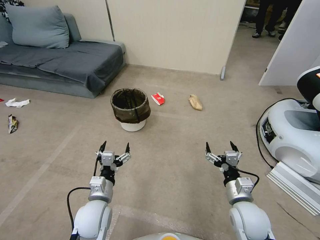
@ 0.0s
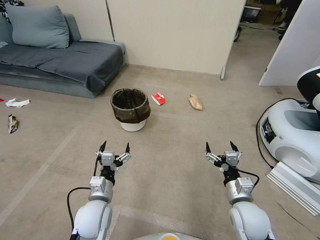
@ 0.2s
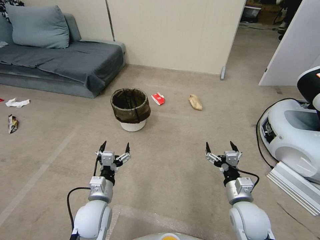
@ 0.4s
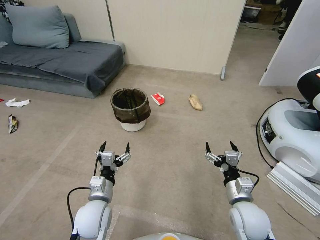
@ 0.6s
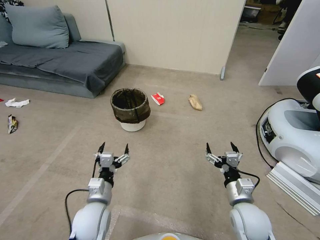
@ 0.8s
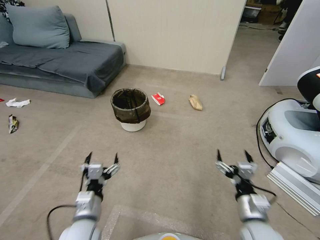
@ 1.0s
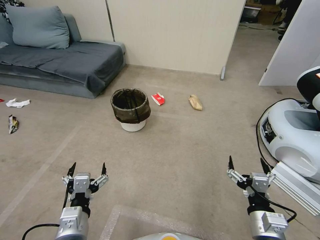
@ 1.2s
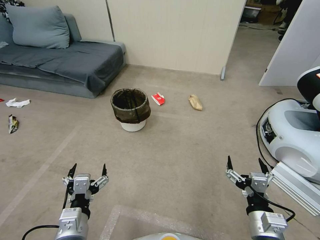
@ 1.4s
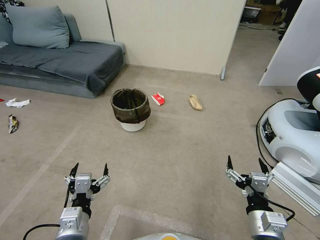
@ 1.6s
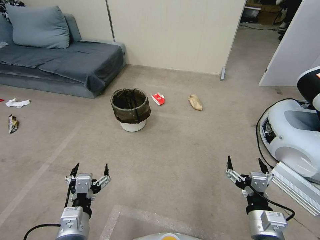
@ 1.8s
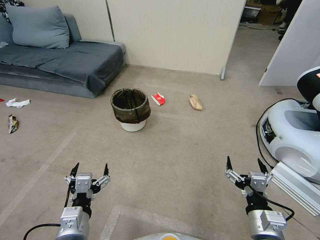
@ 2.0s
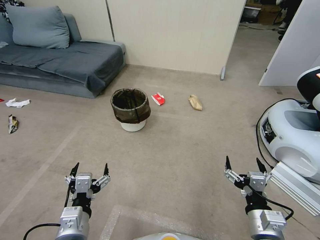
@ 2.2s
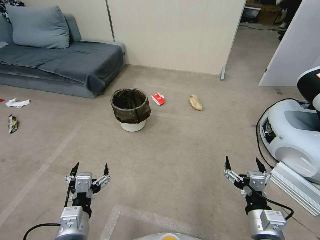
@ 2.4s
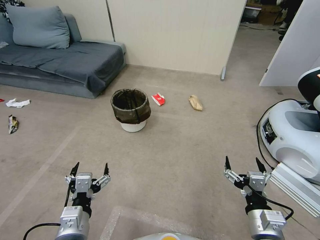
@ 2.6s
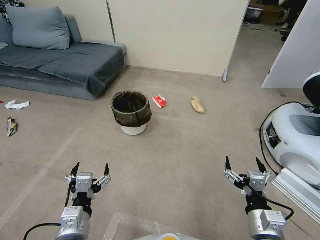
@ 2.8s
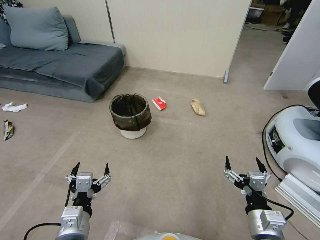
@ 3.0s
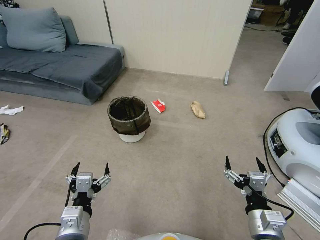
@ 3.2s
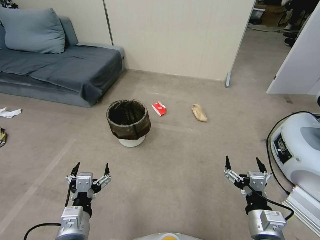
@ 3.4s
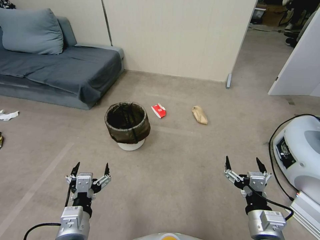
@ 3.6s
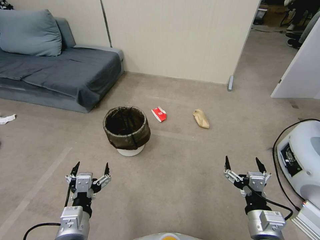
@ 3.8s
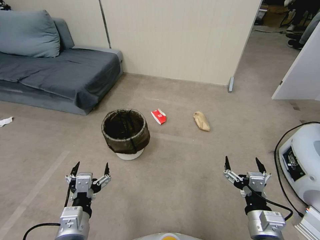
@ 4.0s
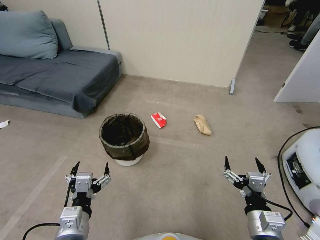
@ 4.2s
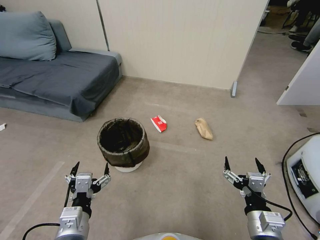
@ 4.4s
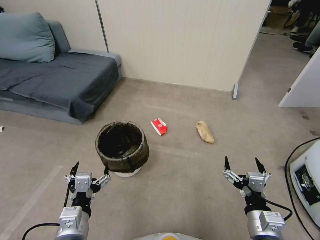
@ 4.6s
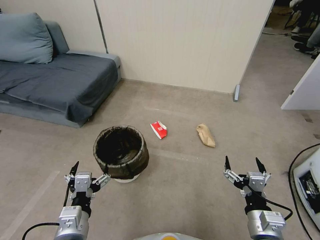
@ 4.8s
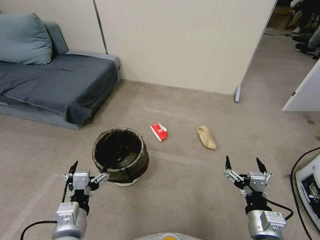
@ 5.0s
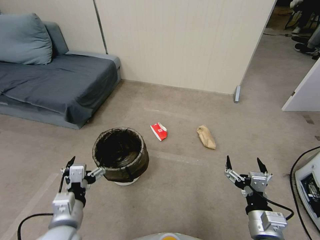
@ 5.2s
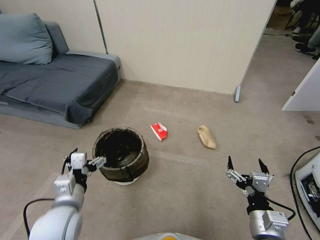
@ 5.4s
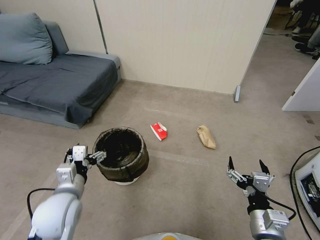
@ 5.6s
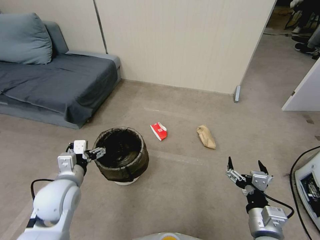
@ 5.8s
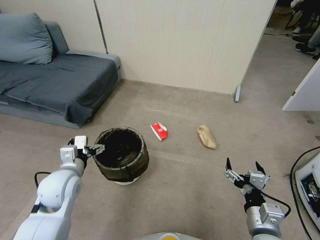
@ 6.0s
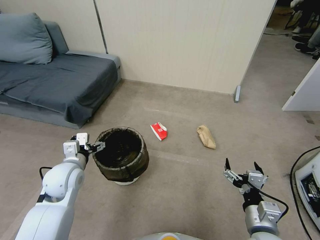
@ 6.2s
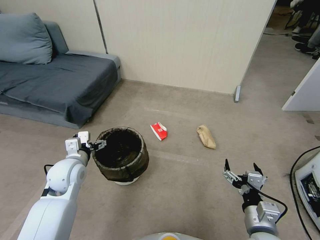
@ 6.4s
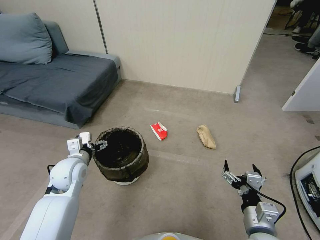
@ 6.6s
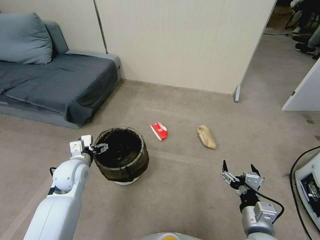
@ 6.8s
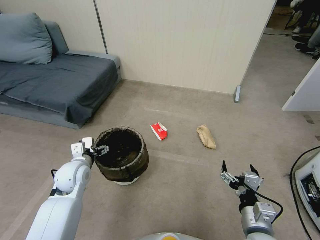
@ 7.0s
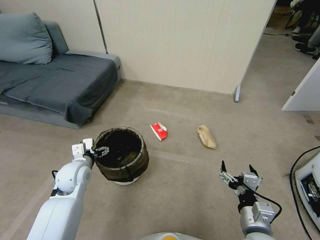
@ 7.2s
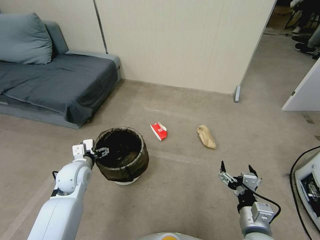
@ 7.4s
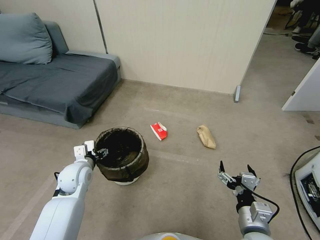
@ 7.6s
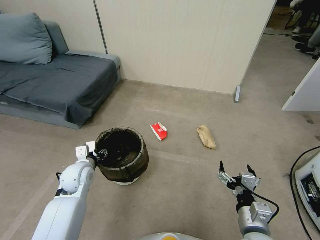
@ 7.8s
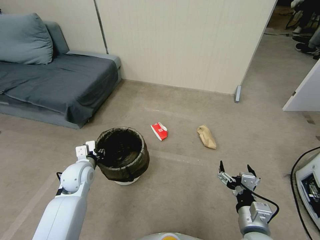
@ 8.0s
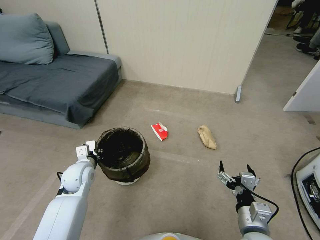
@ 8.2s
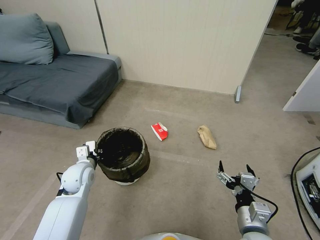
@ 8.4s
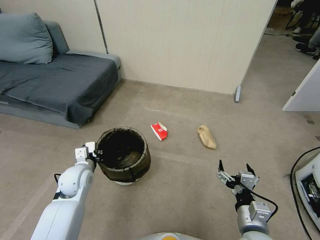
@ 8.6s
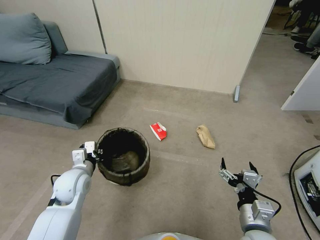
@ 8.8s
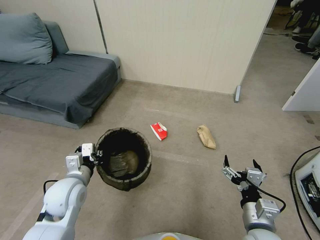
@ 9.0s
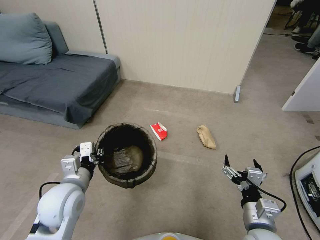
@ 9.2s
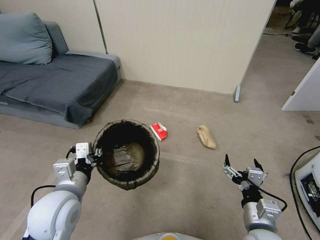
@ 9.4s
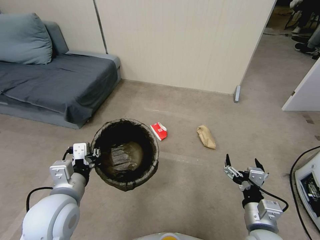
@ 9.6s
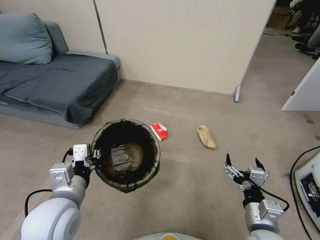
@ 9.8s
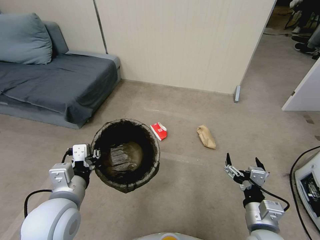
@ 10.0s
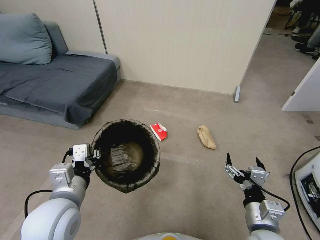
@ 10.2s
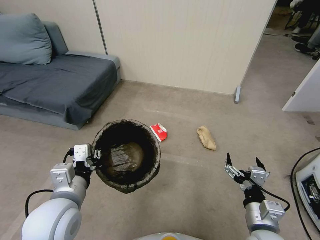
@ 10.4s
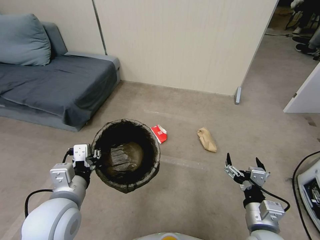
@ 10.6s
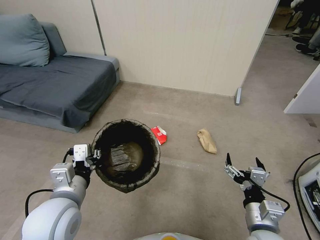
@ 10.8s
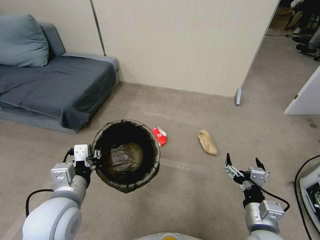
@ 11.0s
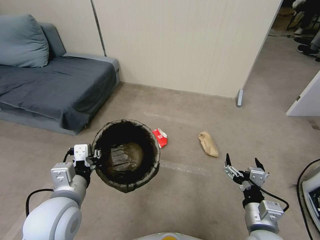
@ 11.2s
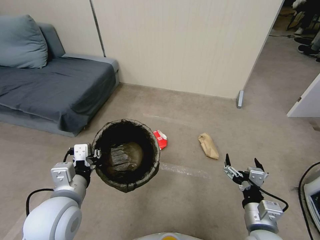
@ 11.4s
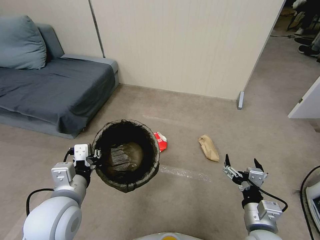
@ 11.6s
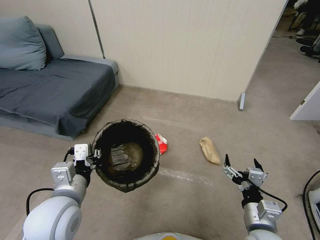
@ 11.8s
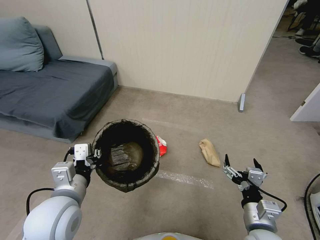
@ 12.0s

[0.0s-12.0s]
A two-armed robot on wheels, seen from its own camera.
Task of the whole recording: Pick up the trash bin, then pick up the garbage from the floor and place it into the trash bin.
1.6s to 3.0s: Both grippers stay about where they are.
4.4s to 6.0s: The left gripper goes roughly 15 cm forward and to the left.
6.0s to 7.6s: The left gripper heads downward and forward, covering some 10 cm.
7.6s to 9.0s: The left gripper moves backward, approximately 5 cm, and closes.
9.0s to 10.4s: The left gripper shifts some 10 cm upward and backward.
10.4s to 12.0s: Neither gripper changes place.

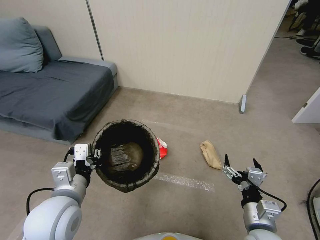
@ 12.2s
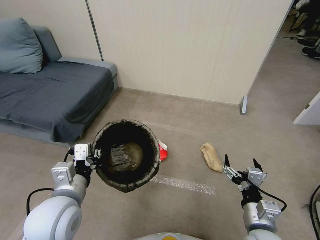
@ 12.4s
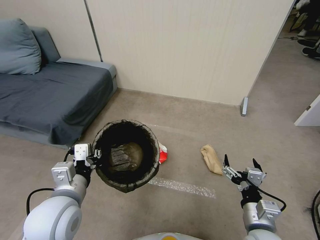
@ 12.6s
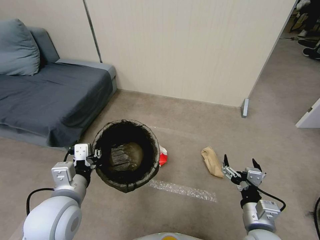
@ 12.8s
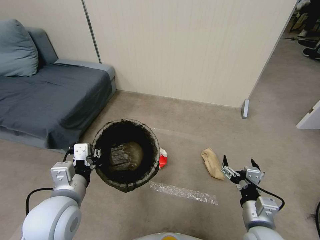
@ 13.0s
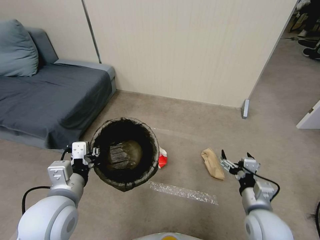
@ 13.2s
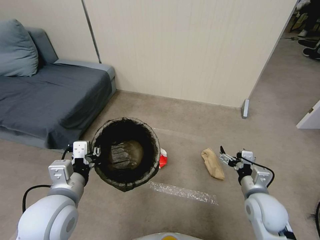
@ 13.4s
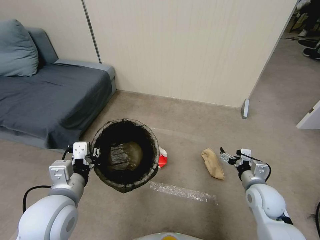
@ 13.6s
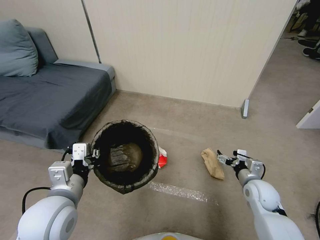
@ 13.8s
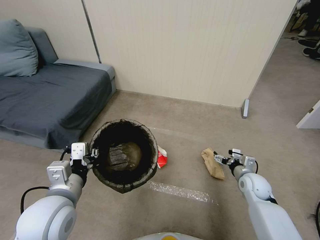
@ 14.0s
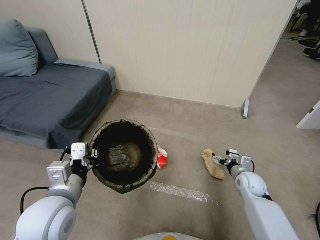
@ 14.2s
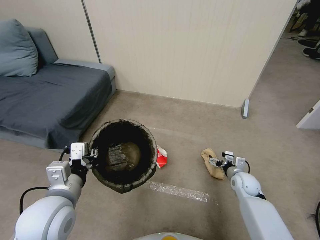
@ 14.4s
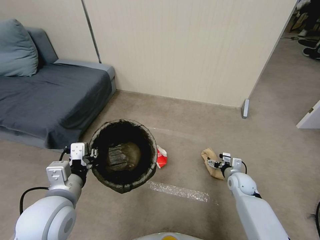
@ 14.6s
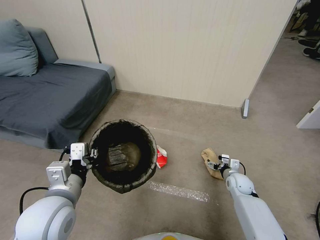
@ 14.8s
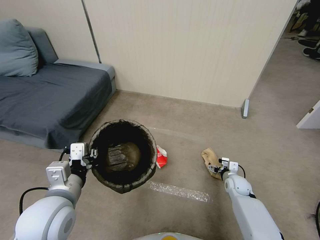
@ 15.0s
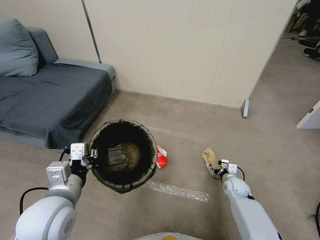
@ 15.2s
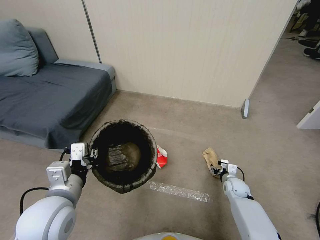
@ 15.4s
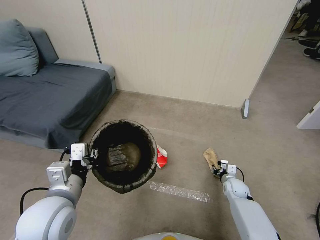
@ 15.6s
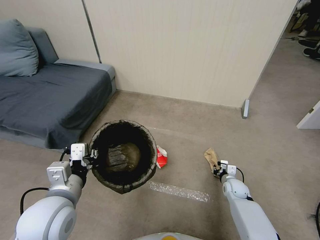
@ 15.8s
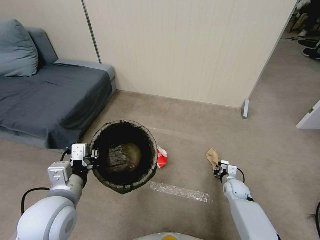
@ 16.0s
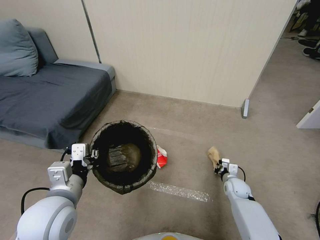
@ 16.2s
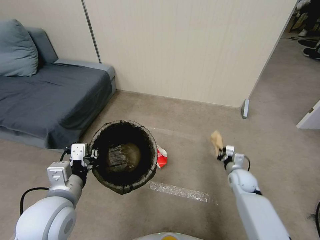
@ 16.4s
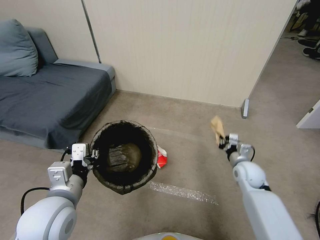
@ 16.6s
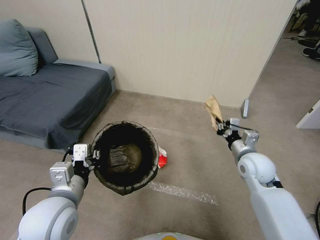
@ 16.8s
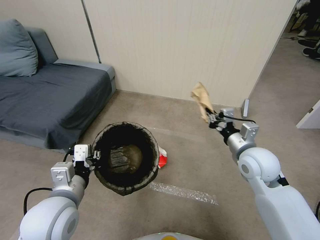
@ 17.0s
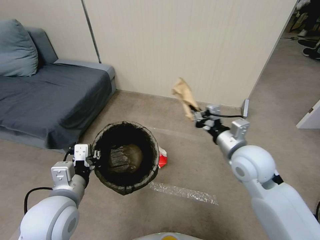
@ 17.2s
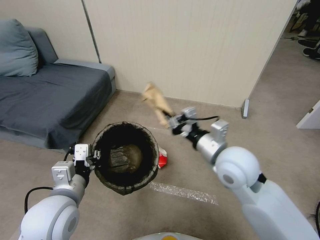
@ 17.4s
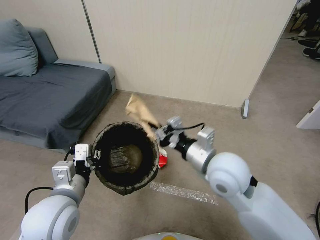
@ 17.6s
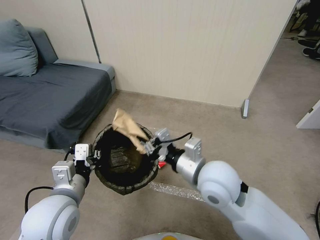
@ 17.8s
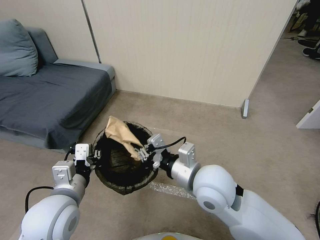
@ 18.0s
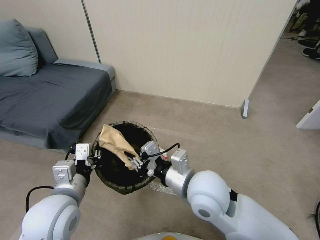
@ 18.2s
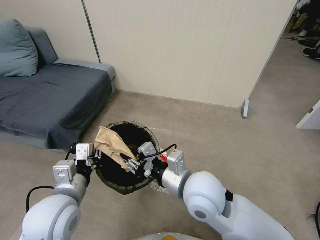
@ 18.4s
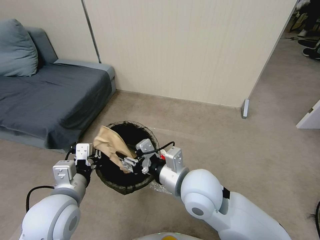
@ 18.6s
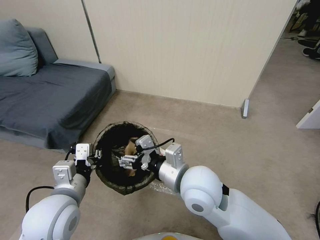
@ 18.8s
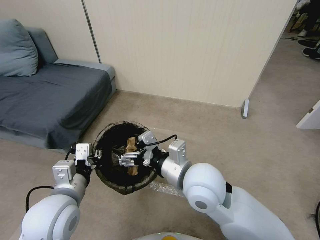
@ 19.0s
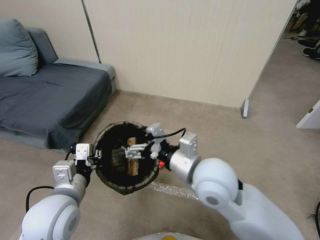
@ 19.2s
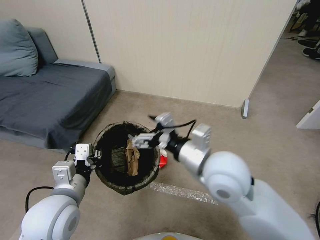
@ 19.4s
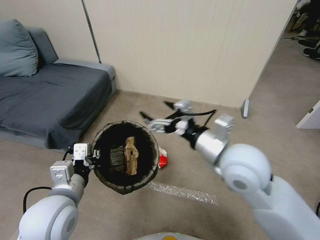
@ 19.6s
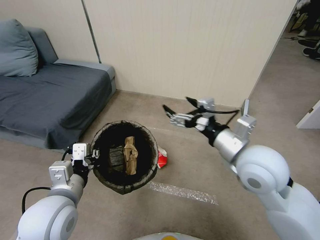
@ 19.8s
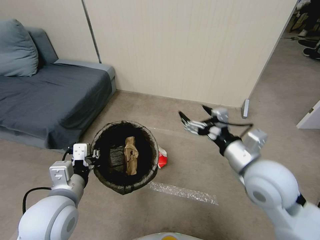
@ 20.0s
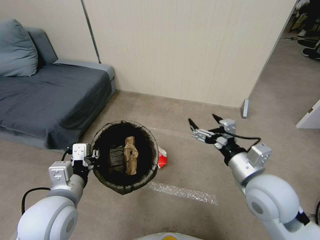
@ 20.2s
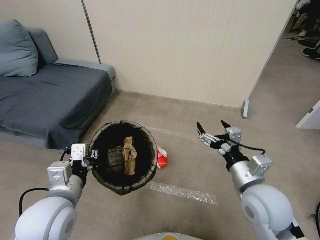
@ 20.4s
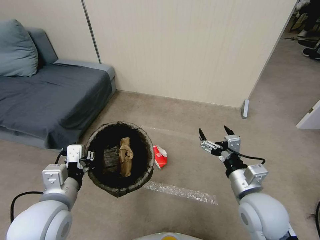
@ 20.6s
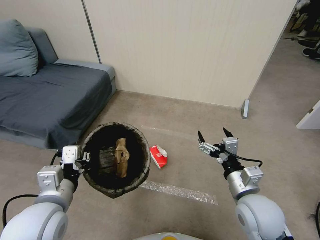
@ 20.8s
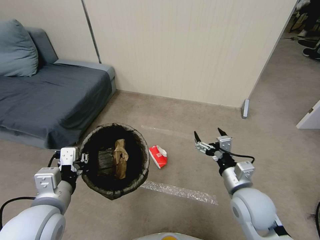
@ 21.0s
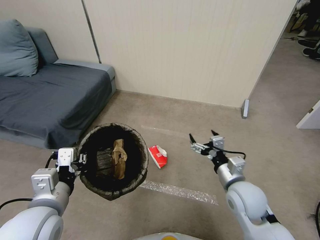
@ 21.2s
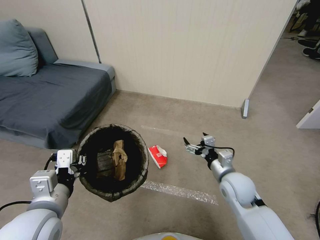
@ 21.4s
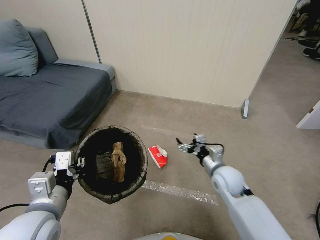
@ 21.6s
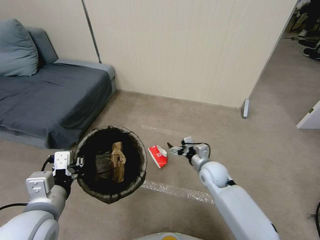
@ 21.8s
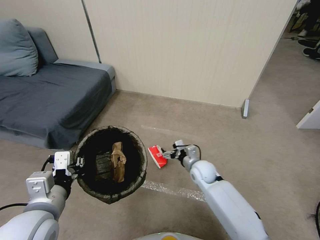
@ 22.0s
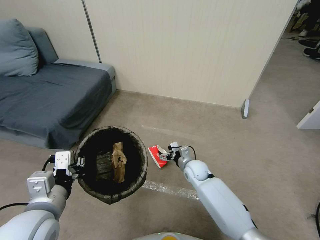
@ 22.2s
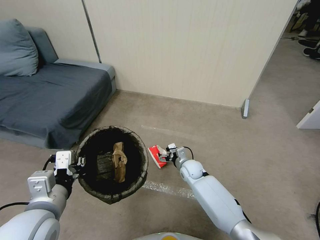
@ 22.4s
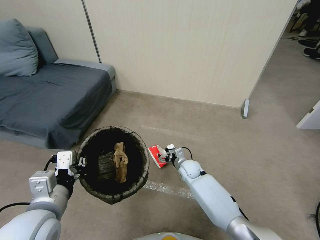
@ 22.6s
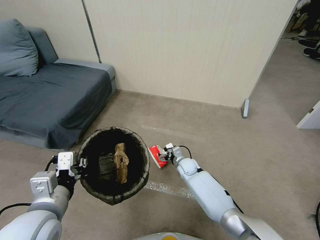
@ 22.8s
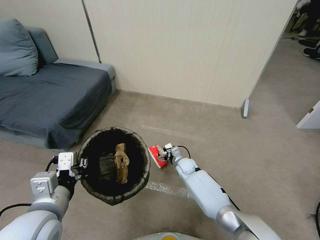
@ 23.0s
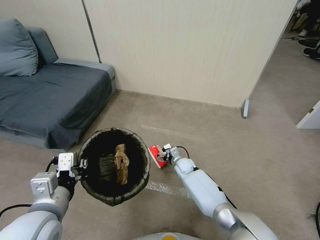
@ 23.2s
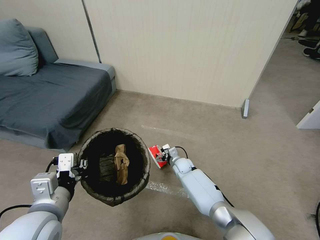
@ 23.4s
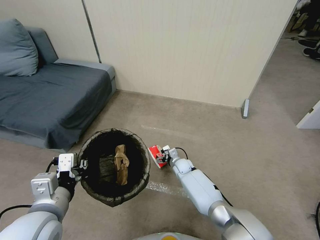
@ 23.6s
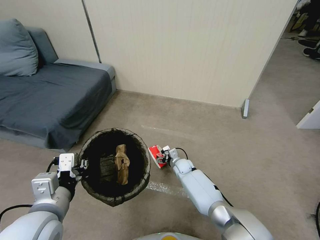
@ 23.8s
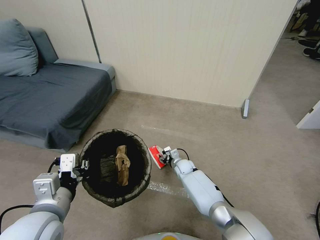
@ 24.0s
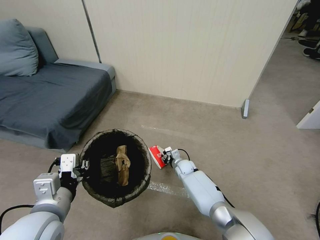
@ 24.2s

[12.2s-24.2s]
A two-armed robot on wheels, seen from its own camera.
Task of the whole recording: Pick up the trash bin, then pick up the garbage from the floor and place it into the trash bin.
12.2s to 13.8s: The right gripper goes roughly 20 cm forward, to the right and downward.
13.8s to 15.2s: The right gripper heads downward and forward, covering about 15 cm.
15.2s to 16.6s: The right gripper moves upward, roughly 15 cm, and closes.
16.6s to 18.2s: The right gripper goes about 30 cm to the left, upward and backward.
18.2s to 19.8s: The right gripper moves to the right and upward, roughly 15 cm, and opens its fingers.
19.8s to 21.2s: The right gripper travels downward by about 15 cm.
21.2s to 22.6s: The right gripper goes roughly 25 cm downward, forward and to the left.
22.6s to 24.2s: The right gripper moves approximately 5 cm, and closes its fingers.
